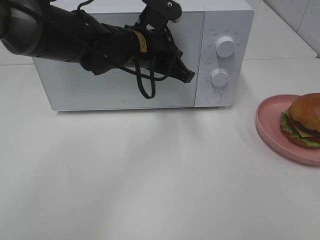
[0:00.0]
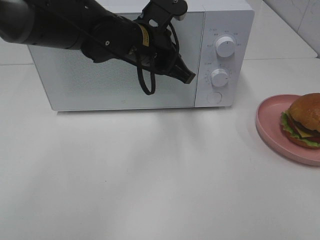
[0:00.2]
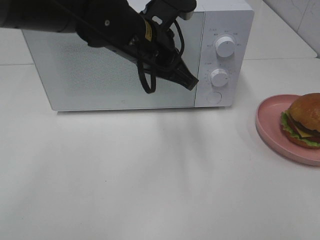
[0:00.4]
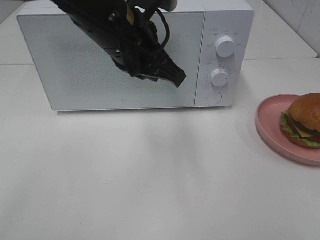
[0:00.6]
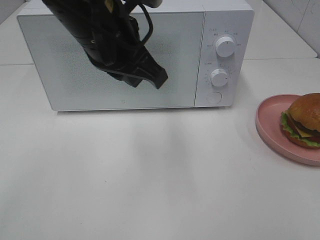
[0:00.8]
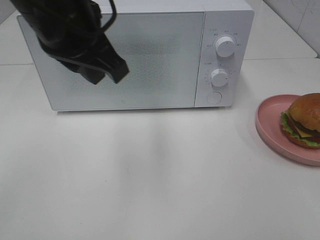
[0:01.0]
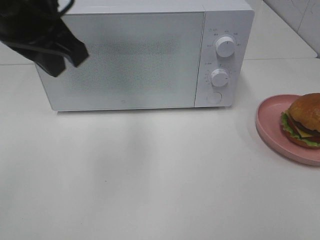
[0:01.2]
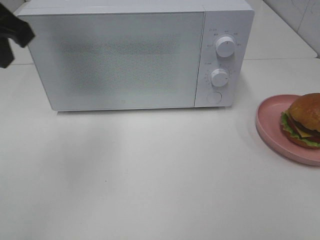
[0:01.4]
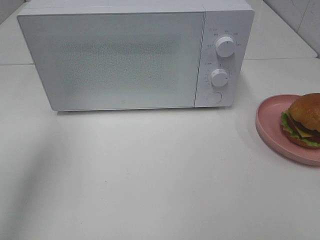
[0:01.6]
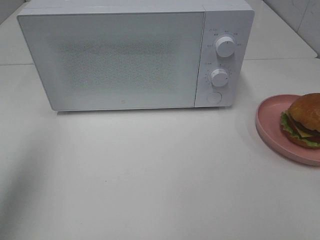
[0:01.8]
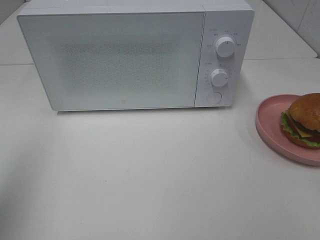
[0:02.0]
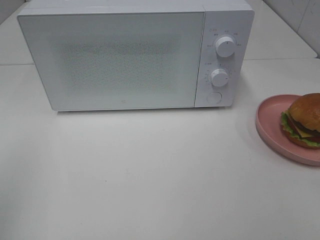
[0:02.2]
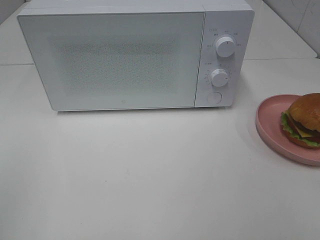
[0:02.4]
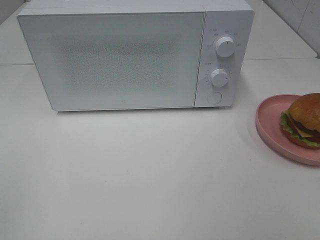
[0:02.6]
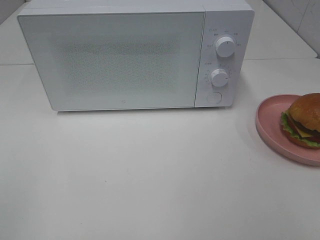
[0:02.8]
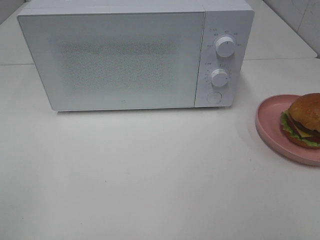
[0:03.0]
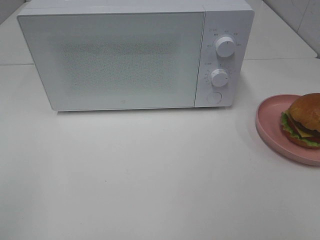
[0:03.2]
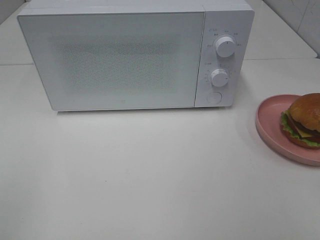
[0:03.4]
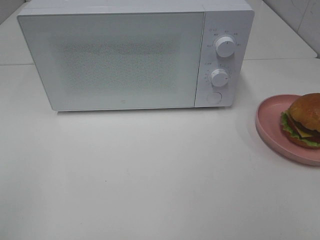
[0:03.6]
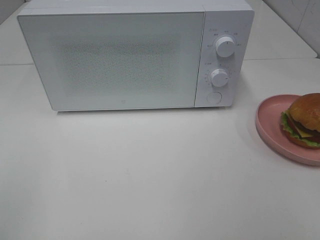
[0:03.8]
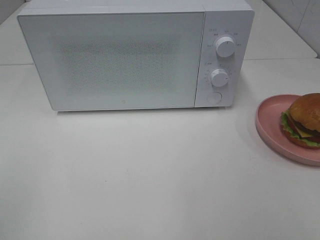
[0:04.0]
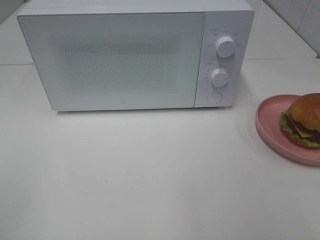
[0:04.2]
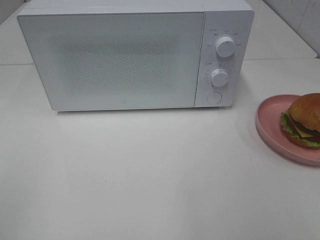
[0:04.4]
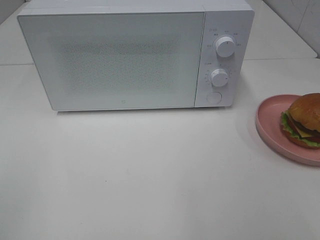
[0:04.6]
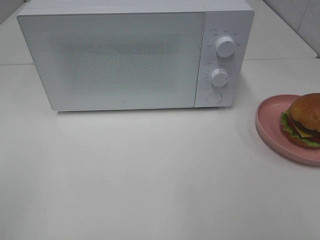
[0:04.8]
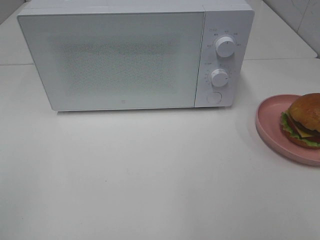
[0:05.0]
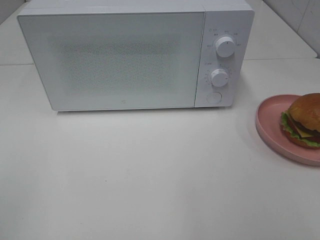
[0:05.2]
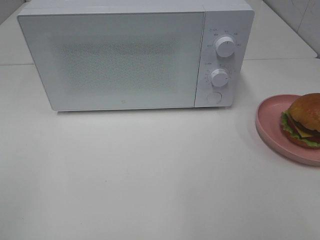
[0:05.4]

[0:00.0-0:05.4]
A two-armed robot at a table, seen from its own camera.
Task of the whole recording: Heat the burger.
0:00.0 to 0:01.4: The left gripper goes roughly 25 cm to the left, upward and backward.
0:01.4 to 0:02.8: The left gripper travels backward by some 30 cm, and closes.
0:04.0 to 0:05.4: Neither gripper changes place.

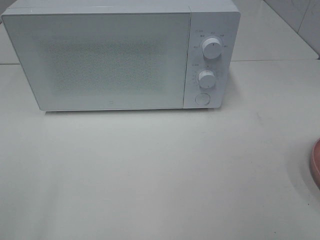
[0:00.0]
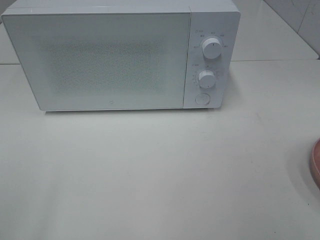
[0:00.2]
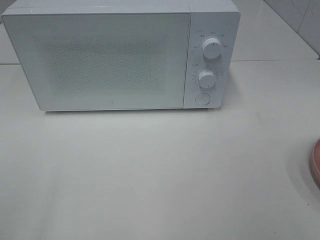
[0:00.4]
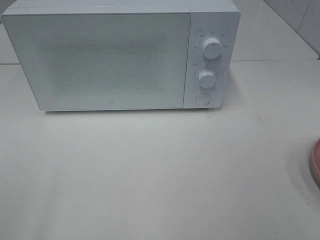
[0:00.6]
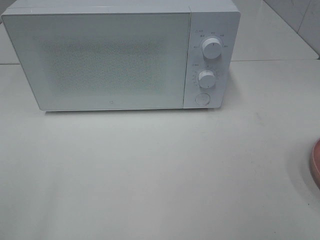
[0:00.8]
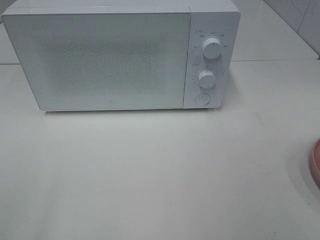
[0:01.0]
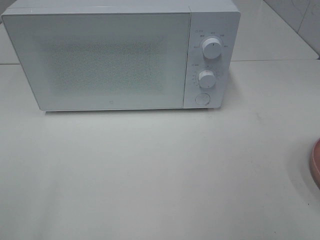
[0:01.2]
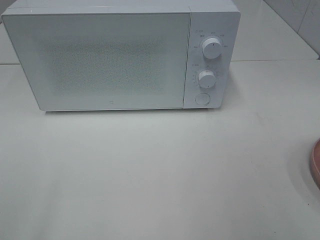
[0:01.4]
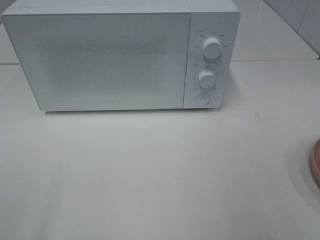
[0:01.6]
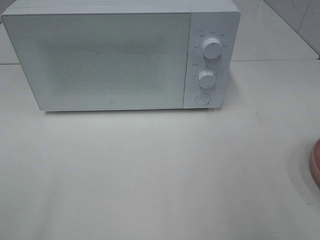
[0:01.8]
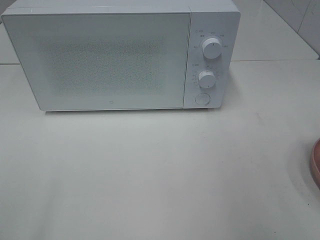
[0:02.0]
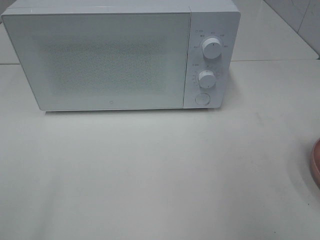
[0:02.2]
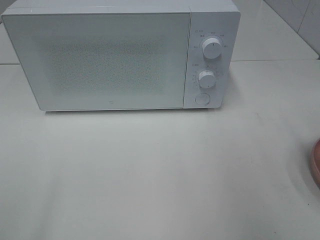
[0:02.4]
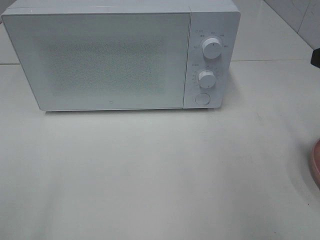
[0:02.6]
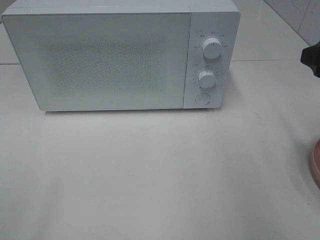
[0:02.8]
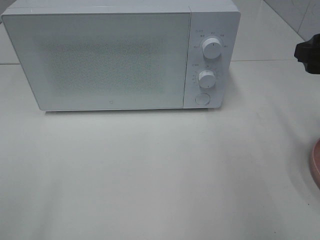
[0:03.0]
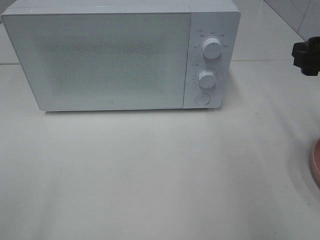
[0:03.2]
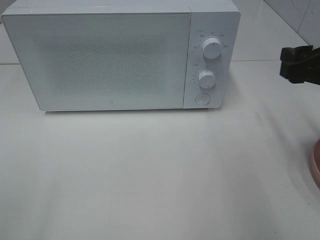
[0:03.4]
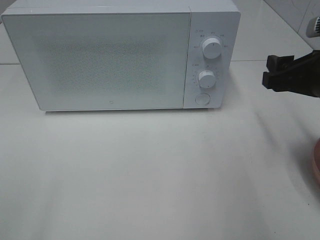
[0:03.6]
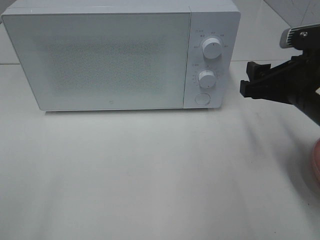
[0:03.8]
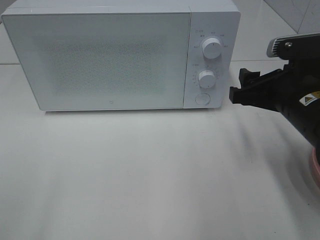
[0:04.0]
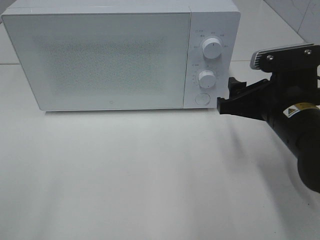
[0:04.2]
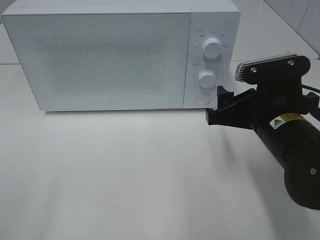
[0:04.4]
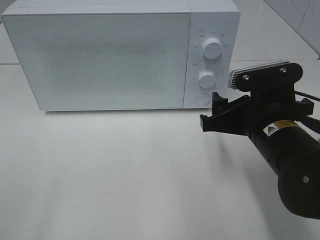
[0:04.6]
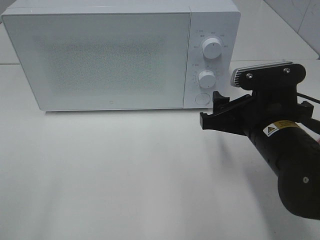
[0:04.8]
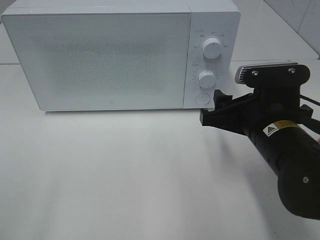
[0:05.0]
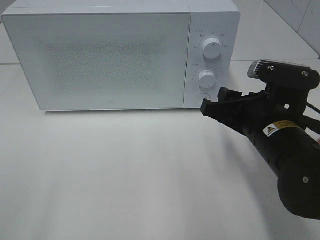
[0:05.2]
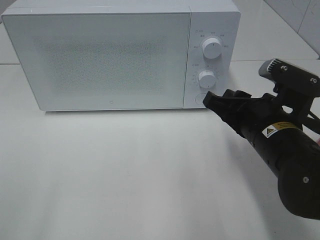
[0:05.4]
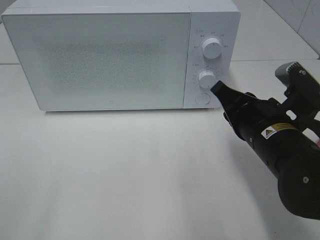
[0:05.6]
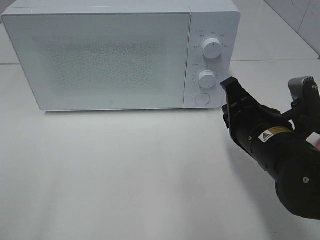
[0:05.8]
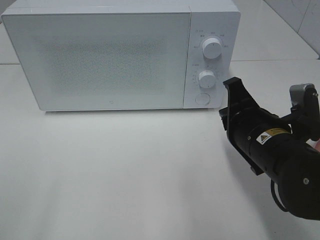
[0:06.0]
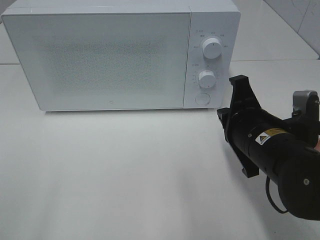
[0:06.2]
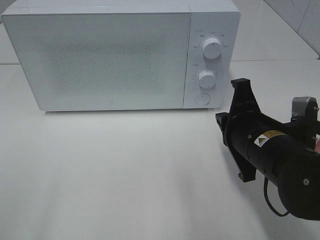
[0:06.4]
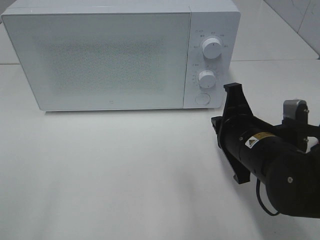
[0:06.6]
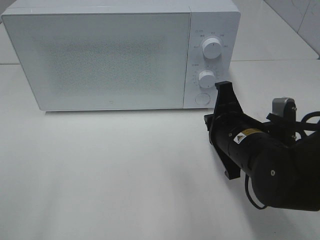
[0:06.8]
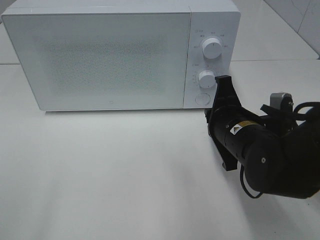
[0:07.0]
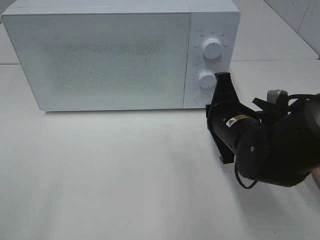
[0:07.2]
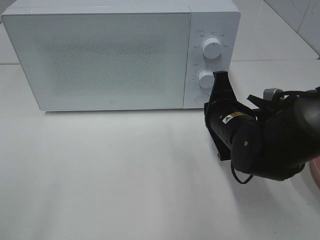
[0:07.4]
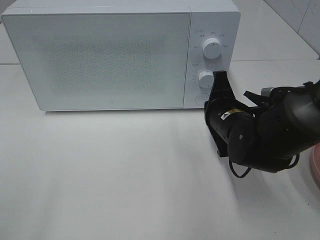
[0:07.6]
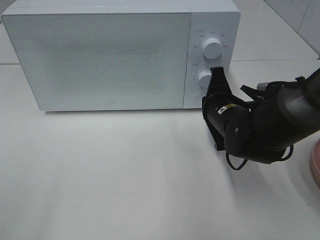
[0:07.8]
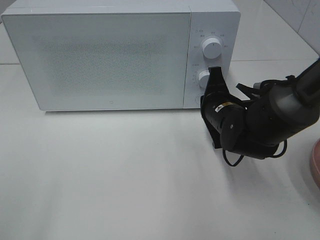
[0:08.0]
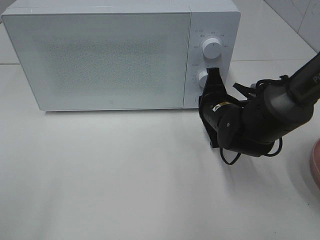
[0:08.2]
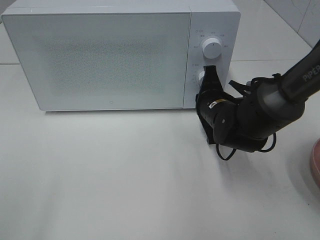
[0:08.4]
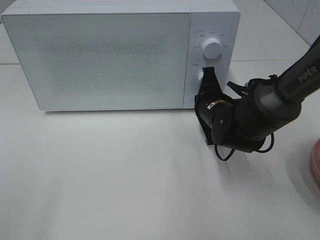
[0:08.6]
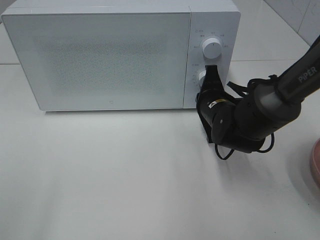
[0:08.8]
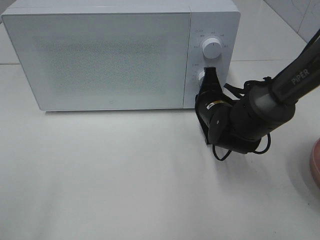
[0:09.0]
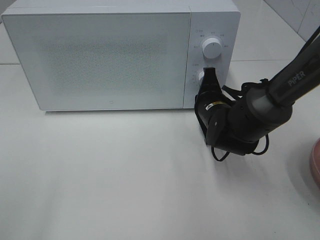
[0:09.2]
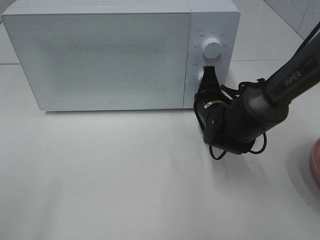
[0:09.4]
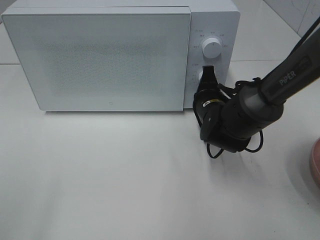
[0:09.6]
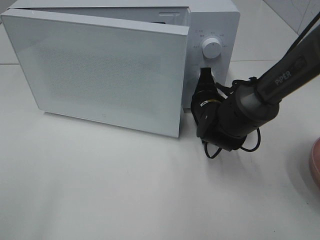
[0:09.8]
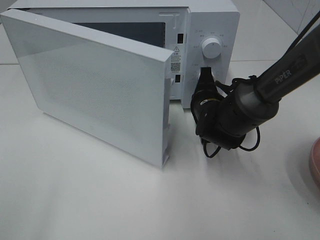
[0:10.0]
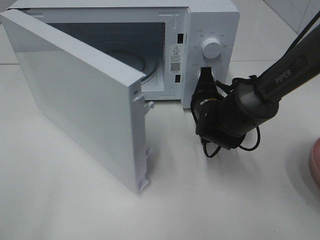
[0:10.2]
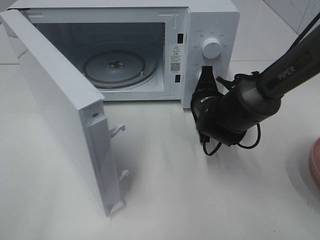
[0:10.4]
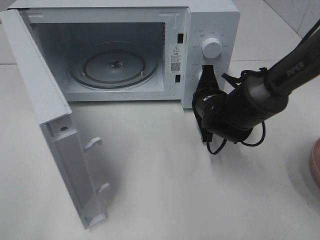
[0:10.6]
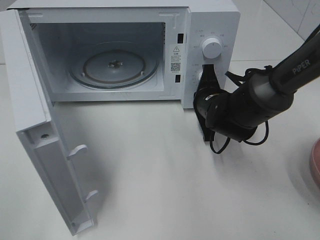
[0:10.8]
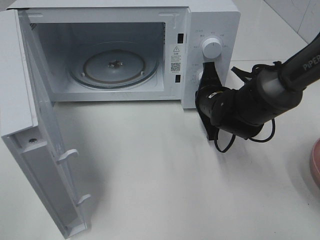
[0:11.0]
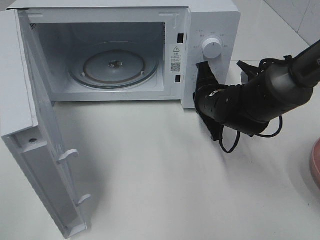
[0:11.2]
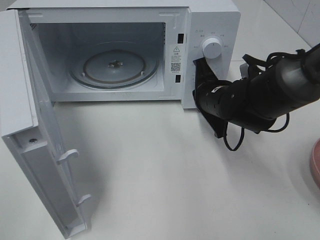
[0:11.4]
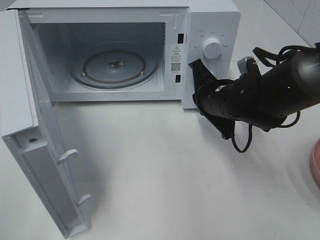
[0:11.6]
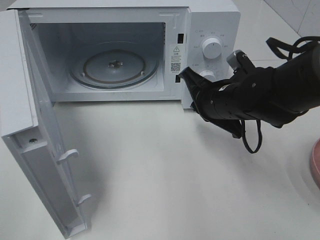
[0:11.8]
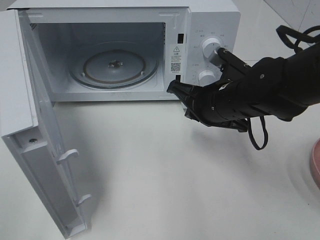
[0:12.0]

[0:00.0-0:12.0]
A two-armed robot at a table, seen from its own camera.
Task of the whole recording: Heat the burger.
Step, 0:00.0 to 0:11.4: Right hand: press the switch.
0:01.6 to 0:03.0: The right gripper goes some 15 cm forward.
0:03.0 to 0:04.4: The right gripper shifts about 15 cm to the left and downward.
0:04.4 to 0:06.0: The right gripper closes up.
0:06.0 to 0:07.6: The right gripper heads forward, covering about 10 cm.
0:07.6 to 0:09.0: The right gripper is displaced forward by some 5 cm.
0:10.4 to 0:12.0: The right gripper shifts some 10 cm upward and backward.

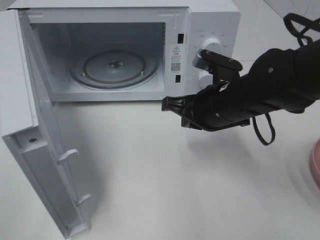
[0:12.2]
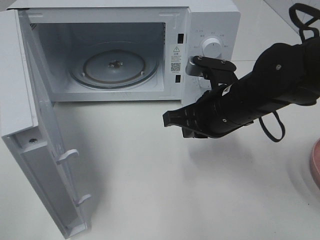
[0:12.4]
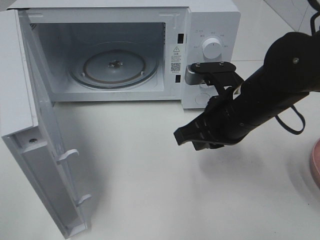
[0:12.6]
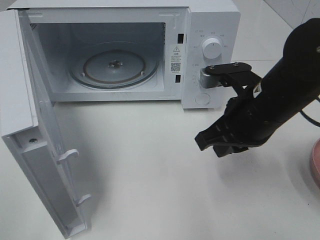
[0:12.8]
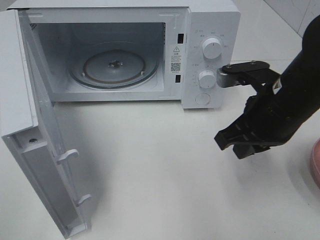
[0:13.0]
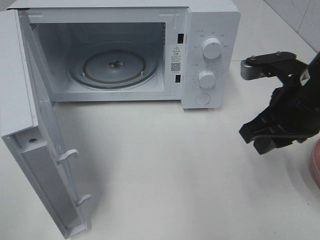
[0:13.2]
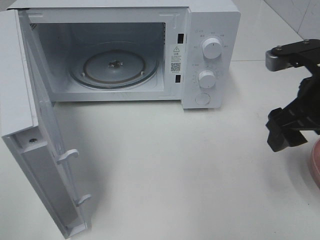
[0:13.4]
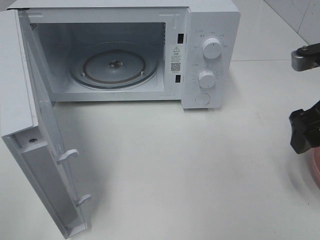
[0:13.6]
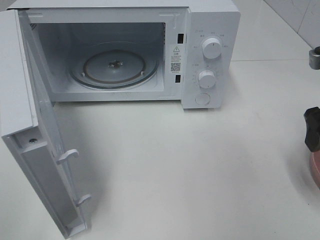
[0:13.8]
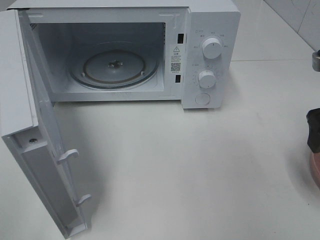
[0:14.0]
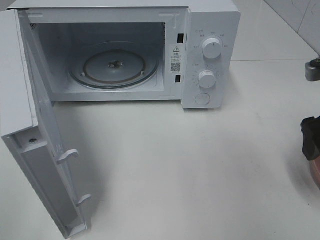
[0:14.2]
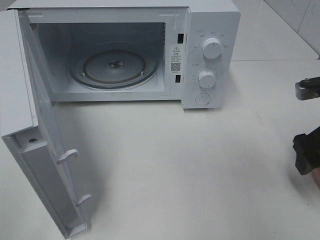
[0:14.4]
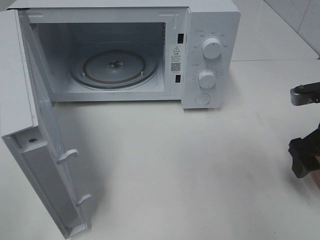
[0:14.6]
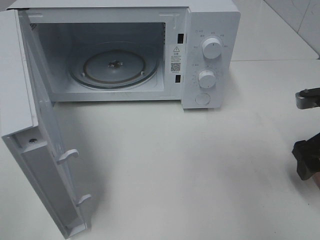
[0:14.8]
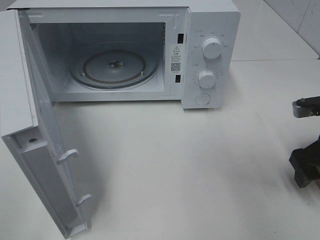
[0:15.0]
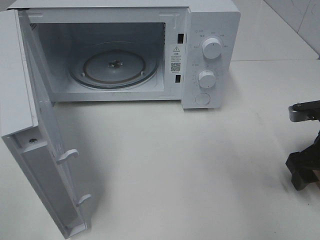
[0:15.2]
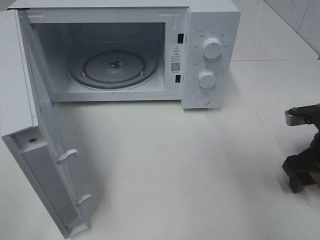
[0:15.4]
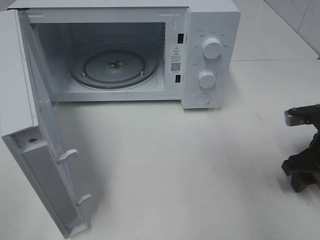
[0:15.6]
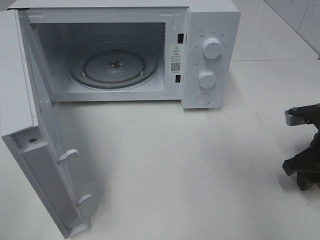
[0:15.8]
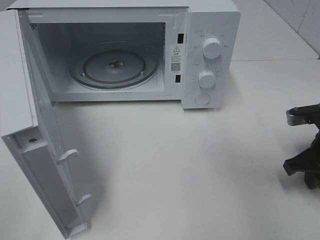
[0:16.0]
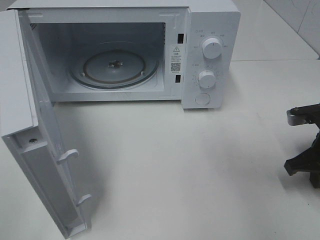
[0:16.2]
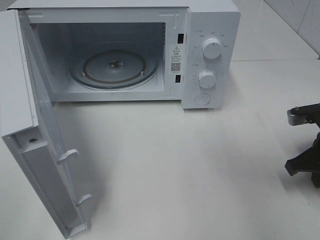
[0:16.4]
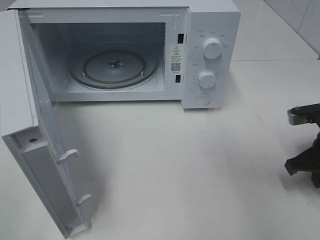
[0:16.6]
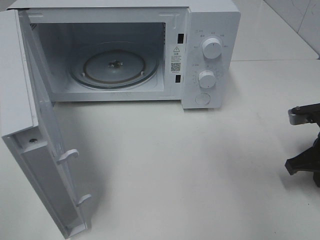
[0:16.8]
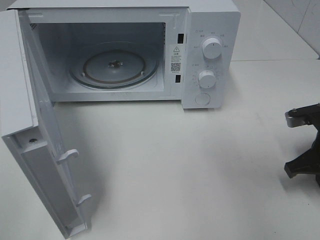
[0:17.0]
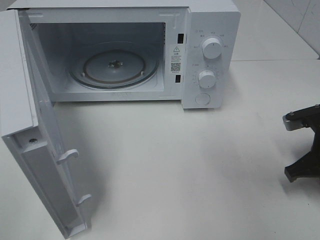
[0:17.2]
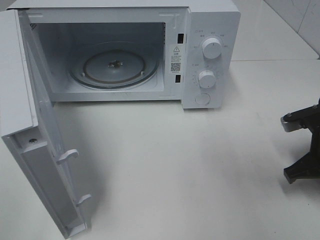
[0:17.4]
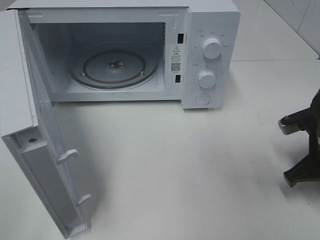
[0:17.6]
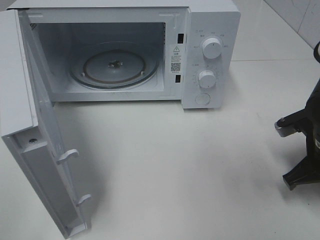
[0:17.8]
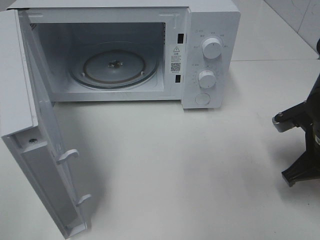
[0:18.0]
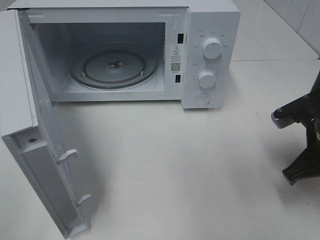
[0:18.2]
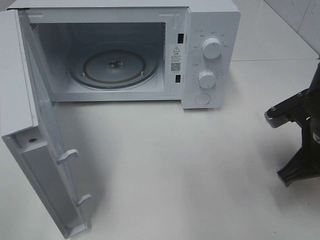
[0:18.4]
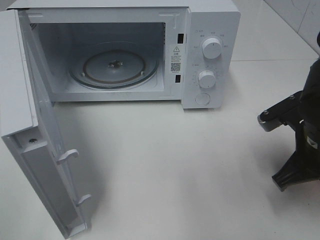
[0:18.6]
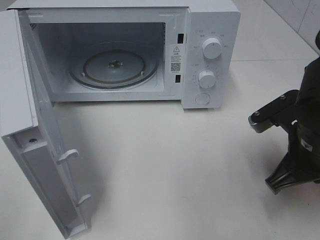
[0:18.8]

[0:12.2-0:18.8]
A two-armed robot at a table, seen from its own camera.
Task of the whole recording: Heat the burger.
Step, 0:12.2 to 0:16.8: Right hand: grab the plate with the hamburger.
0:12.2 to 0:13.8: The right gripper goes some 20 cm to the right and upward, and opens.
0:13.8 to 0:15.4: The right gripper moves downward, roughly 10 cm.
0:15.4 to 0:17.2: The right gripper closes its fingers.
0:17.2 to 0:18.8: The right gripper shifts approximately 10 cm to the left.
